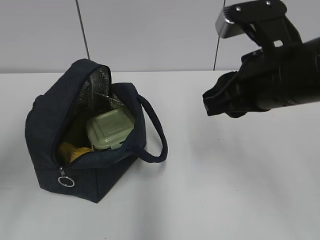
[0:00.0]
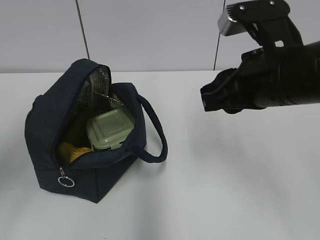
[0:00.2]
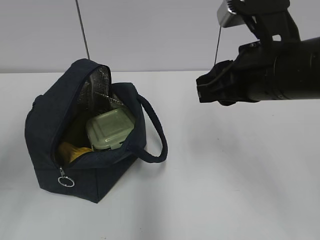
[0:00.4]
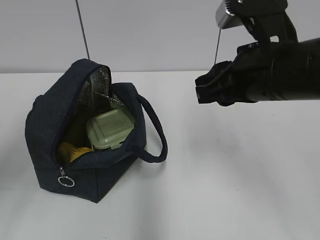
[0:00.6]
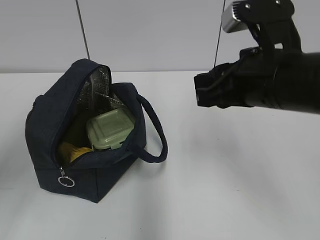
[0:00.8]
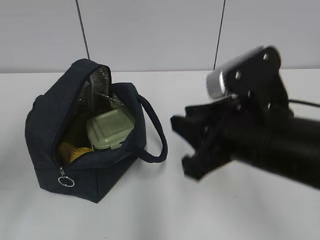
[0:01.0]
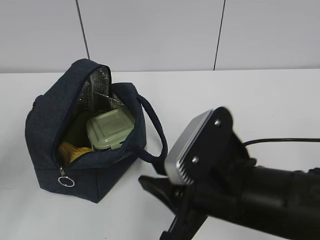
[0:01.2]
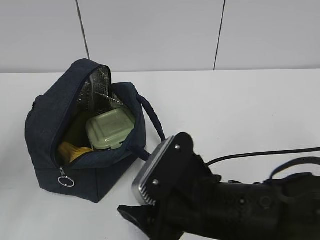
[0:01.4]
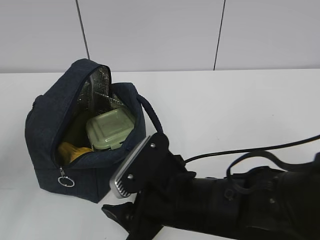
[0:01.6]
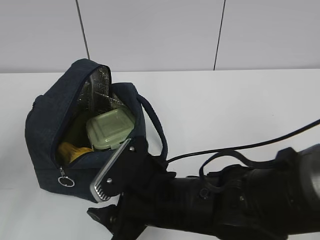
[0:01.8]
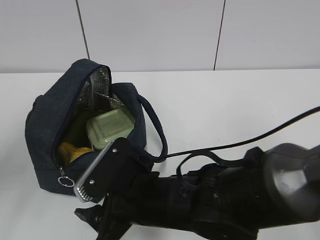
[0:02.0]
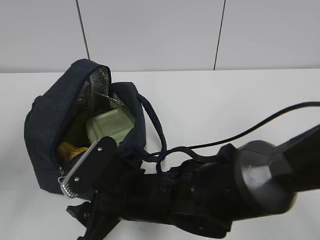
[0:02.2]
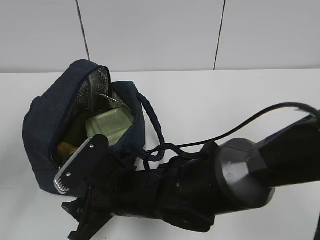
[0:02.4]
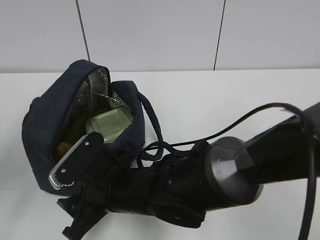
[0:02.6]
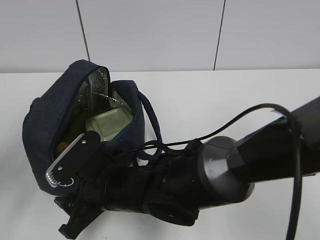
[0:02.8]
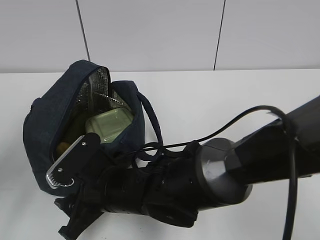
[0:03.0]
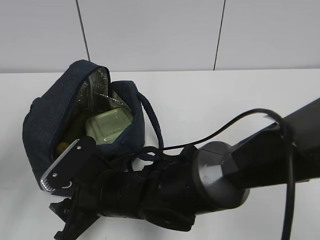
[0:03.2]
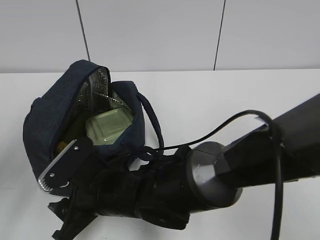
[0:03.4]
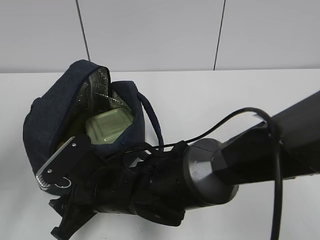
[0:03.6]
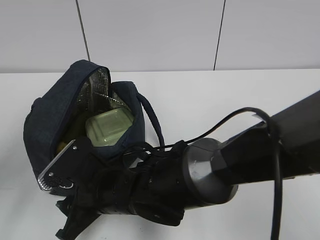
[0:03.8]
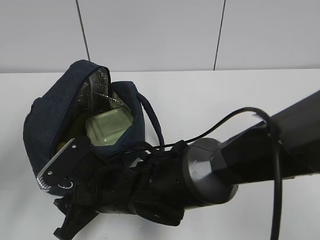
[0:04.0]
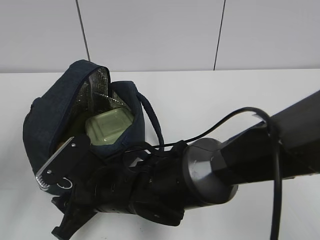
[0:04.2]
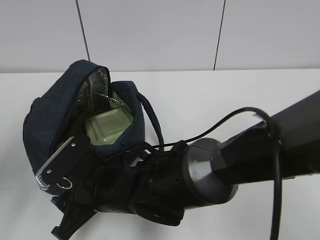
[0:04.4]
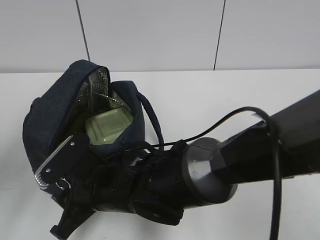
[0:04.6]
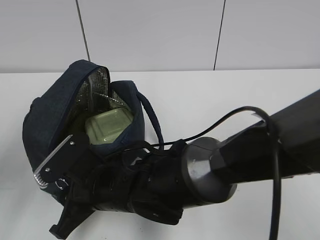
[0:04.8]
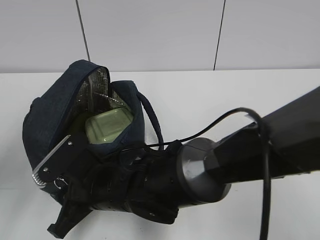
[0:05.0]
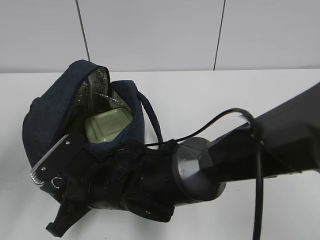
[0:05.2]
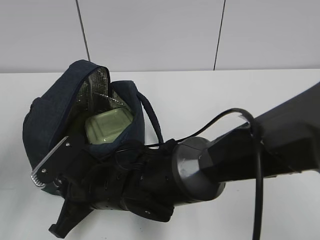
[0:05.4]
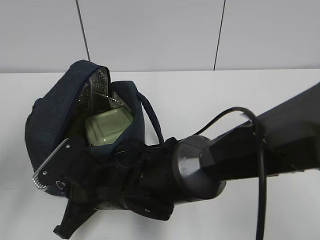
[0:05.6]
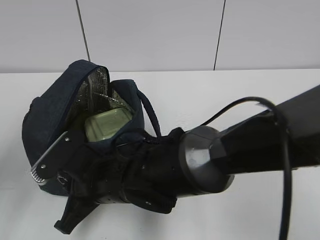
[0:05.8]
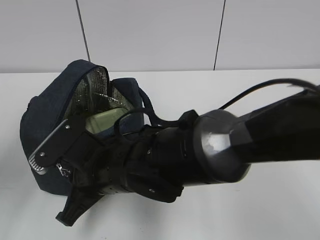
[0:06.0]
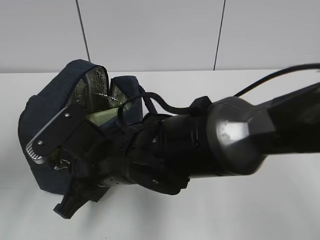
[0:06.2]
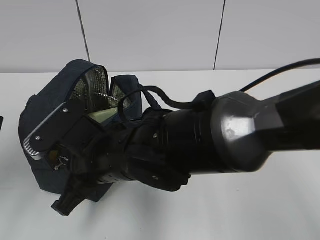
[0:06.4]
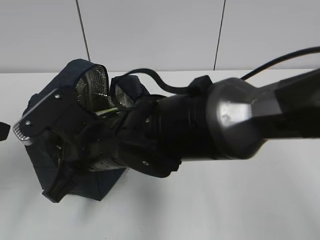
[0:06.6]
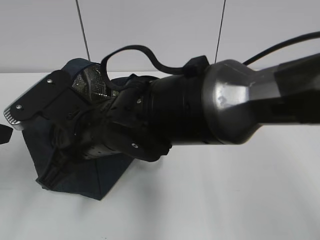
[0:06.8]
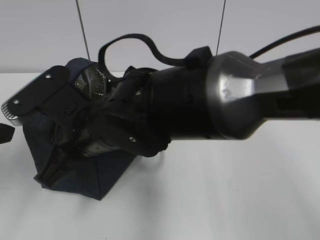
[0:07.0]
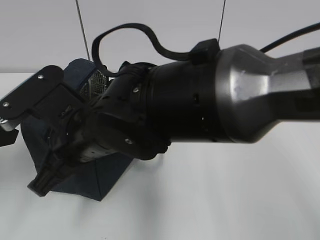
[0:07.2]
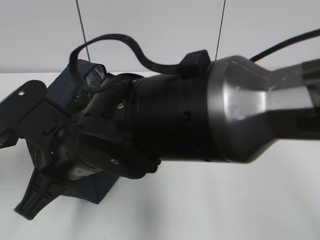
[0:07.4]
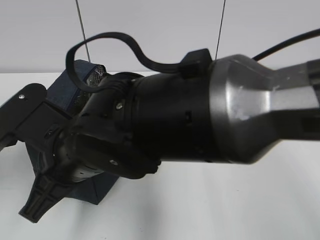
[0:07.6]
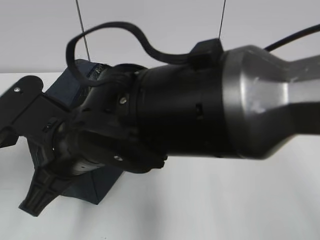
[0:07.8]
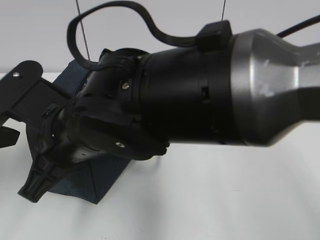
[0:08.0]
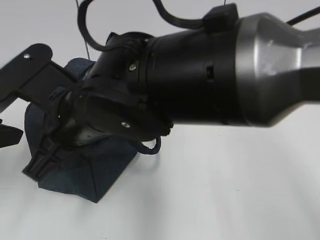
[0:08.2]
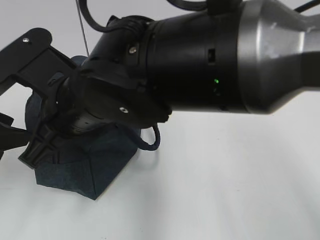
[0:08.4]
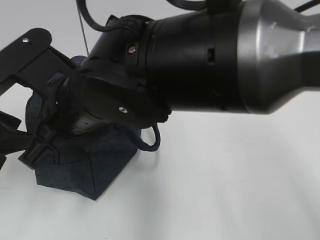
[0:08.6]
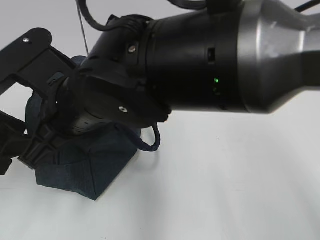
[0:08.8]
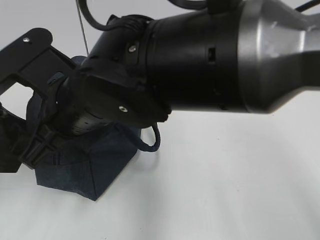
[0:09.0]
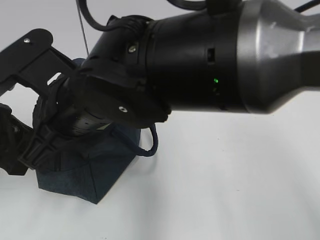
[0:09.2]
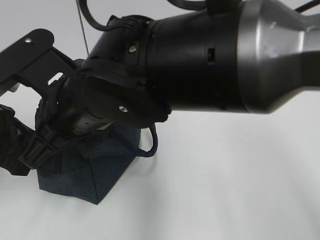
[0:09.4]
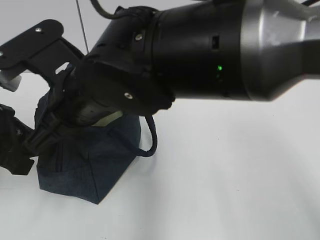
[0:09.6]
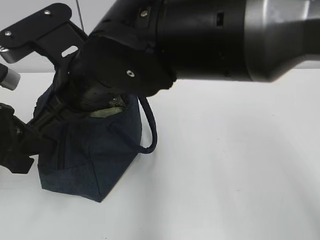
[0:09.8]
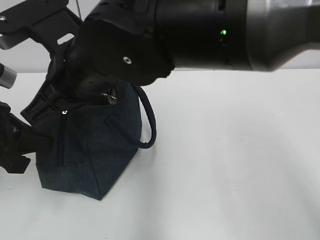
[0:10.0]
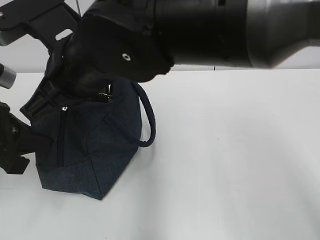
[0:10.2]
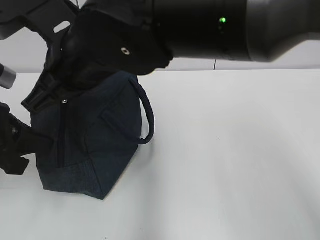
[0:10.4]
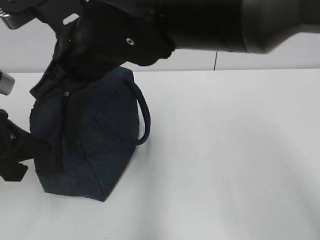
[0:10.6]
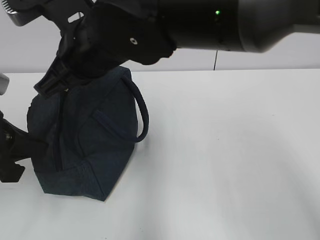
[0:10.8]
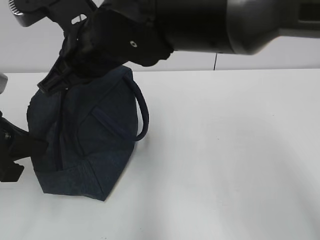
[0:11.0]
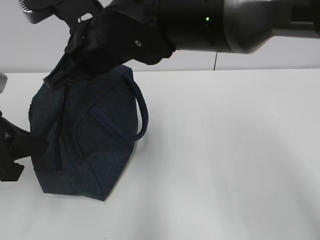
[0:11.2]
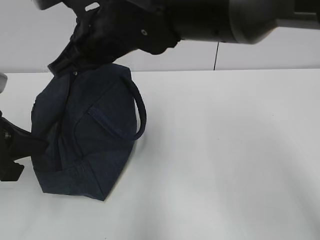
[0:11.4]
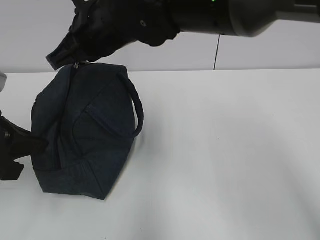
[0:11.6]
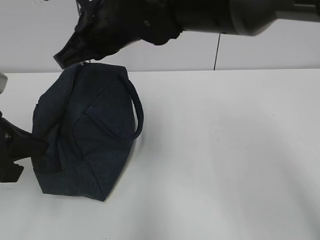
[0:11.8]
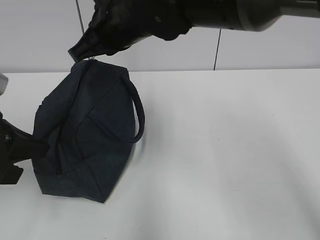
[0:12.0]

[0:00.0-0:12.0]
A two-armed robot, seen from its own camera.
Step, 0:00.0 to 0:10.6: Grab the lunch bag with your left hand.
0:00.0 to 0:01.6: The right gripper shifts roughly 20 cm downward and to the left, and opens its fingers.
0:01.6 to 0:03.0: The right gripper shifts roughly 10 cm to the left and forward.
0:03.0 to 0:04.4: Both grippers stay about where they are.
0:04.4 to 0:06.0: The right gripper closes its fingers.
0:06.0 to 0:07.6: The right gripper travels upward by roughly 5 cm. Meanwhile the left gripper shifts by about 5 cm.
0:07.6 to 0:09.0: The right gripper moves about 5 cm.
0:09.0 to 0:10.4: The right gripper moves some 5 cm. Meanwhile the left gripper closes its fingers.
0:10.4 to 0:12.0: The right gripper is displaced forward by some 10 cm.

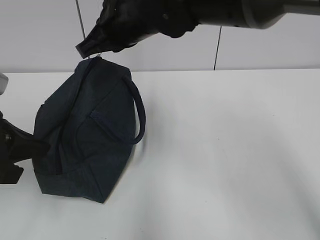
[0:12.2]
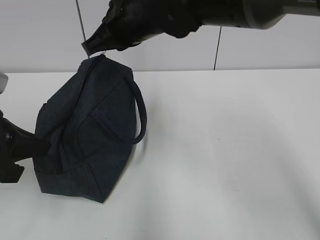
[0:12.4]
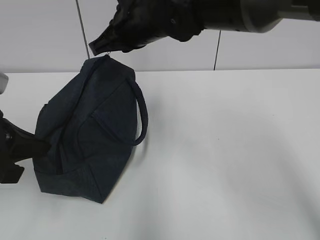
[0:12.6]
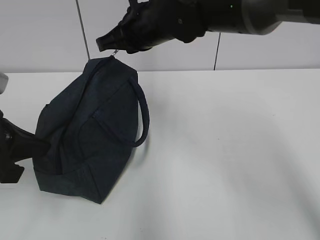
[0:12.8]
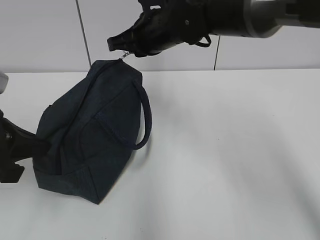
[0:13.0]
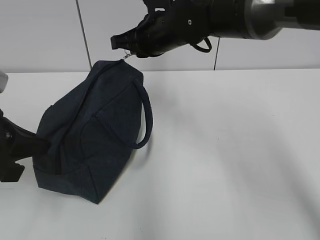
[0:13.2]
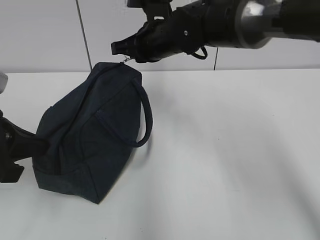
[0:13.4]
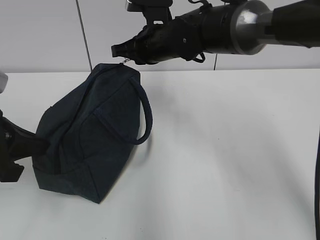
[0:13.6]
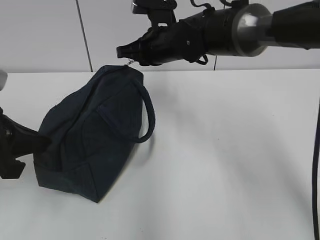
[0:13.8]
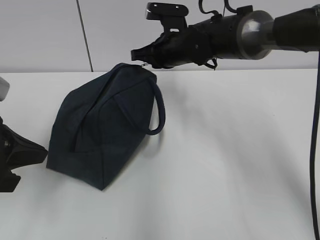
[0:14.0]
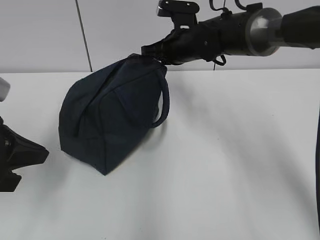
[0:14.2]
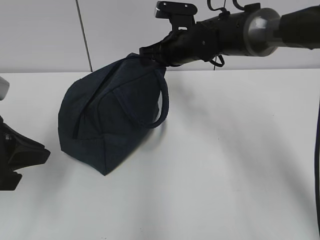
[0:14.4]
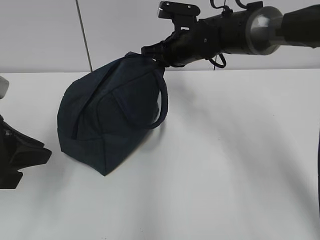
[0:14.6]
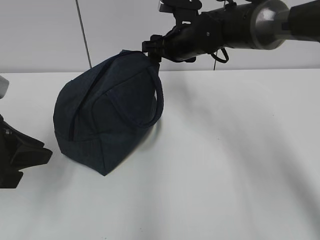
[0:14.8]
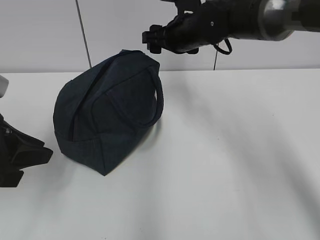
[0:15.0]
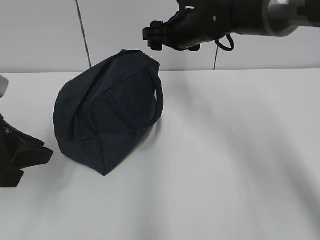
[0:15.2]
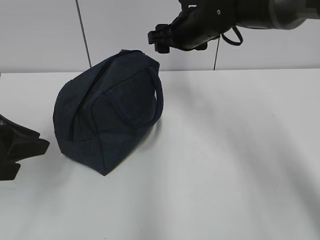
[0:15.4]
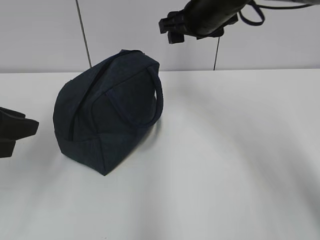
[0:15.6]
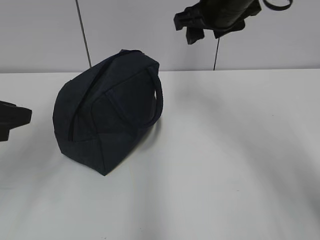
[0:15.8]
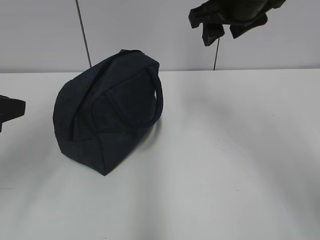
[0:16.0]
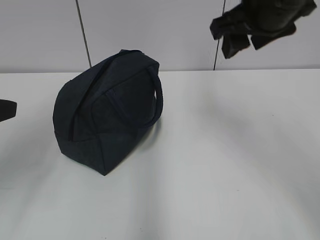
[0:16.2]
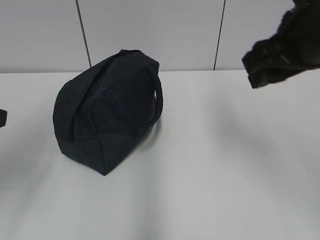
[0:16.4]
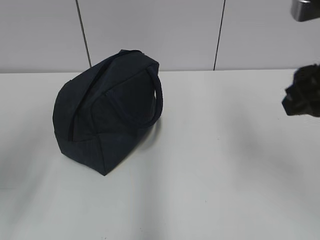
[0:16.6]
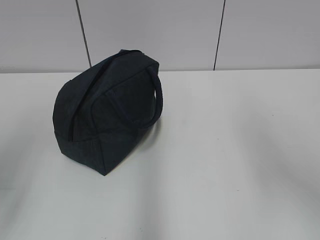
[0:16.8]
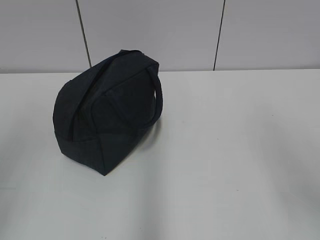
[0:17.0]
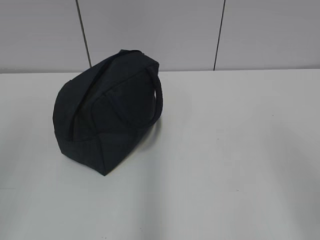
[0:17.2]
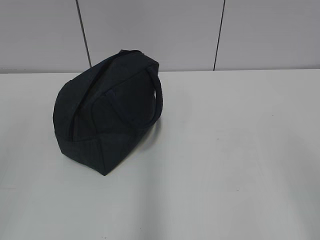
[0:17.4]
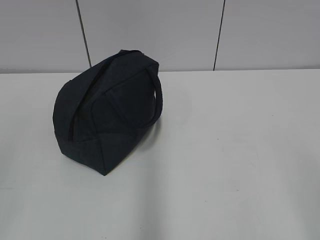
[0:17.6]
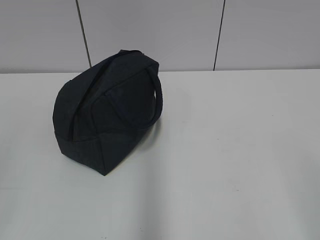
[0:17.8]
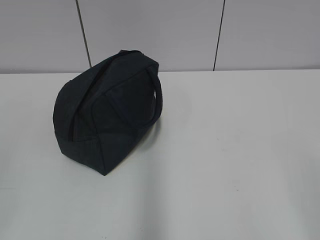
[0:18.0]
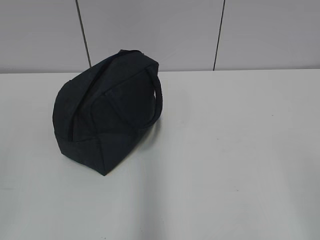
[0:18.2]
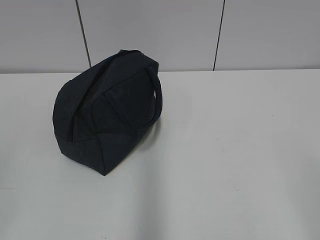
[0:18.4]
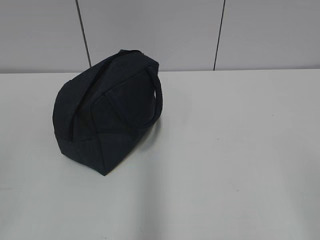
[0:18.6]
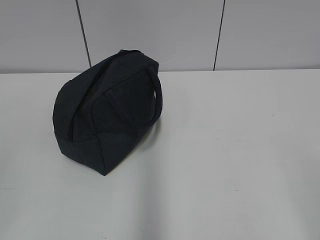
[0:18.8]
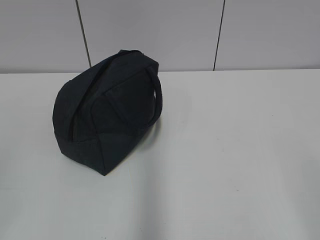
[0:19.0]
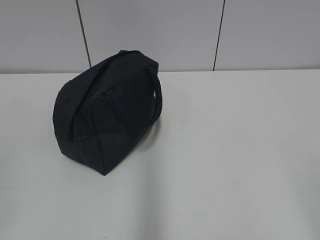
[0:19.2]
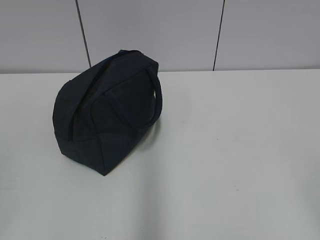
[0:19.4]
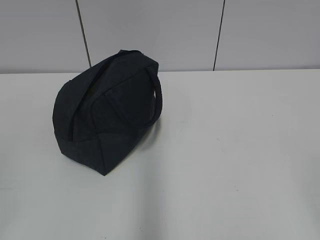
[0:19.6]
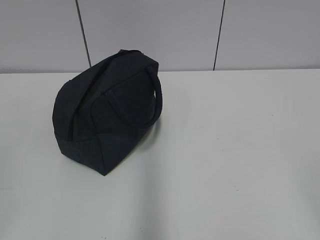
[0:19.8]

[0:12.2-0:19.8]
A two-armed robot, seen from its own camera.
Step, 0:12.2 to 0:14.6: Pull the zipper with your right hand.
0:12.2 to 0:13.8: The right gripper moves forward, downward and to the right, roughly 15 cm.
0:13.8 to 0:15.2: The right gripper opens up. Meanwhile the left gripper opens its fingers.
0:15.2 to 0:16.8: The right gripper moves backward and to the right, about 35 cm, while the left gripper heads backward and upward, covering some 10 cm.

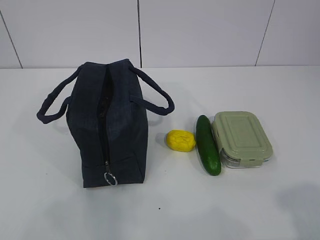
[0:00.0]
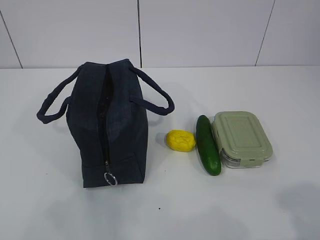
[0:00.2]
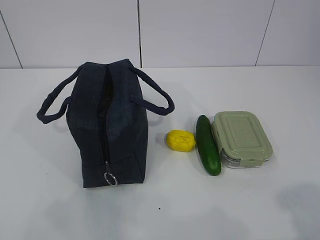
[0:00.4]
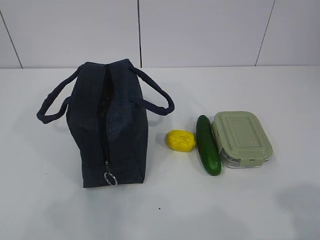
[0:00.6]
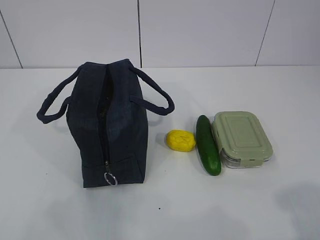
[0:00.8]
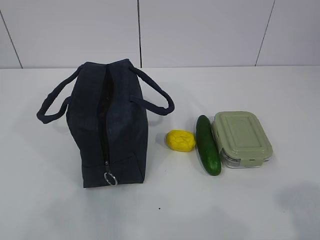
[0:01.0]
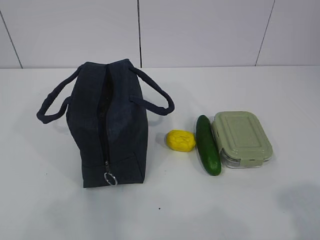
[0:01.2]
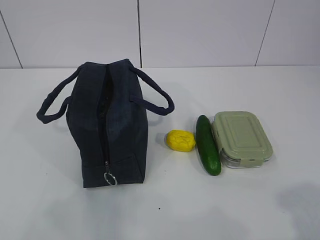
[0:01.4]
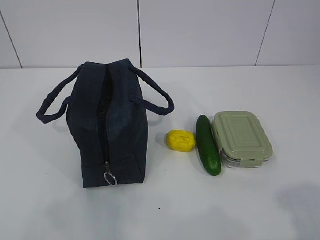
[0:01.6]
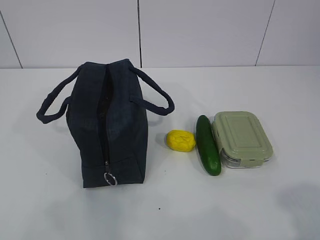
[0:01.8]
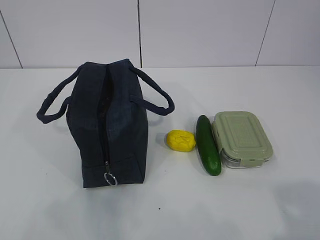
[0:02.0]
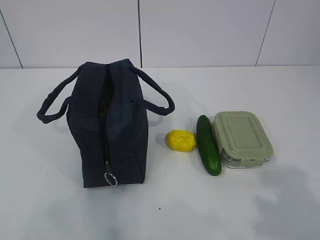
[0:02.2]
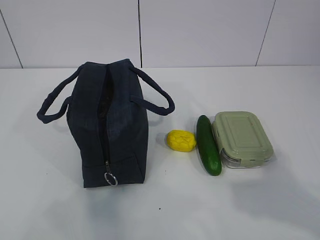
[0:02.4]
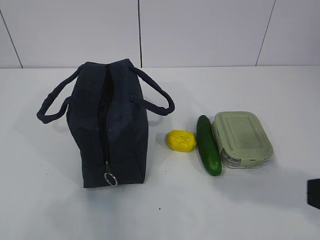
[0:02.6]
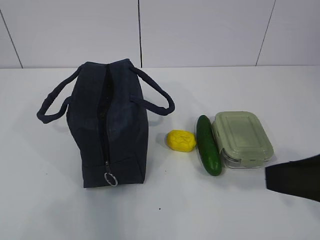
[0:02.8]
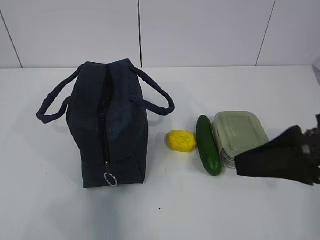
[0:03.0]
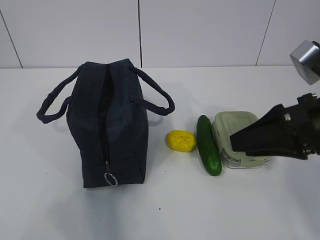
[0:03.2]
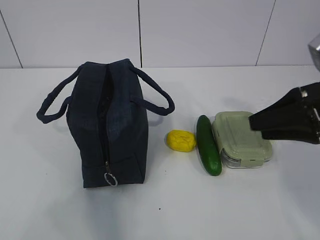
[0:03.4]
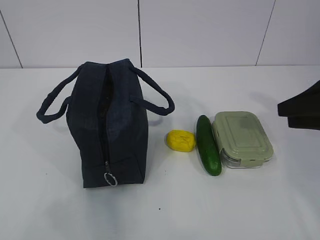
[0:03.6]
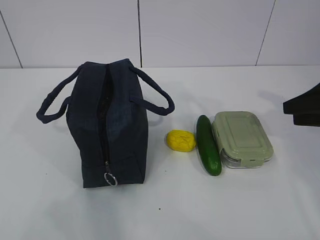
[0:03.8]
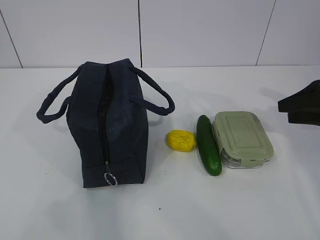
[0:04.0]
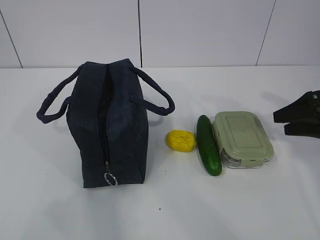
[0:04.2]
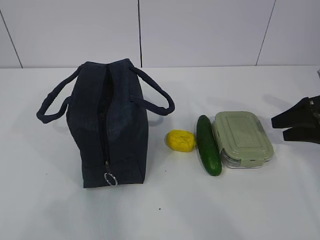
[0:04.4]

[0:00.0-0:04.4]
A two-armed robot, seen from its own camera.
0:01.4 to 0:03.0: The right gripper heads forward, covering roughly 20 cm.
0:03.0 to 0:04.4: The right gripper moves forward, to the right and downward, about 25 cm.
